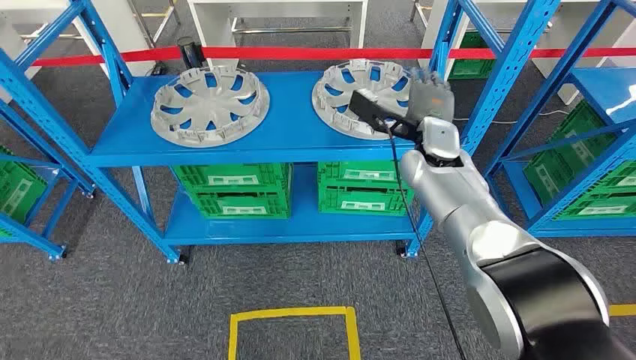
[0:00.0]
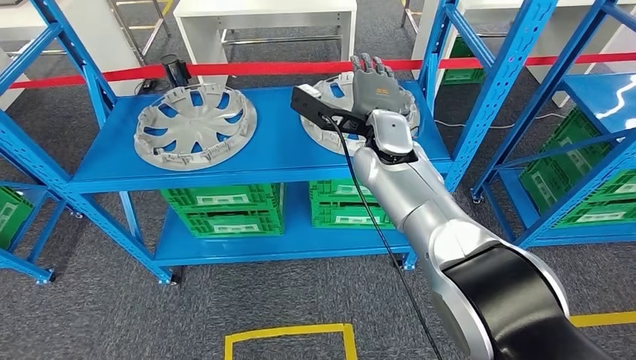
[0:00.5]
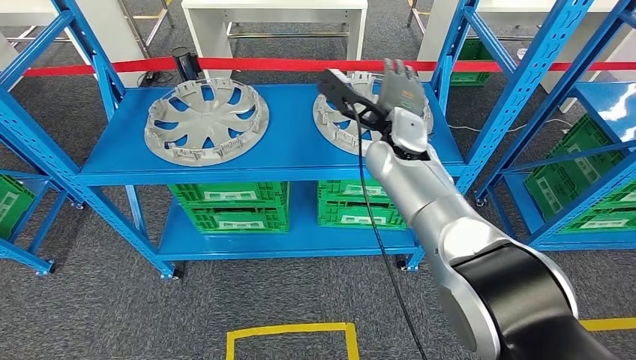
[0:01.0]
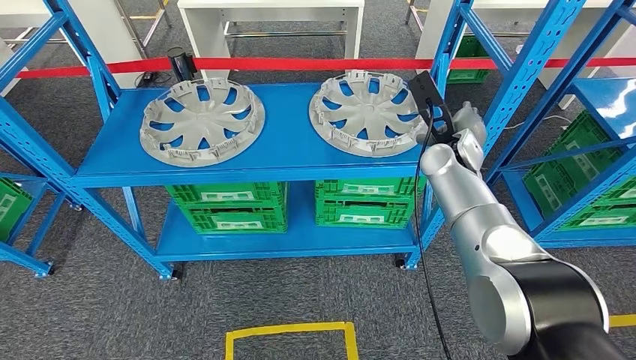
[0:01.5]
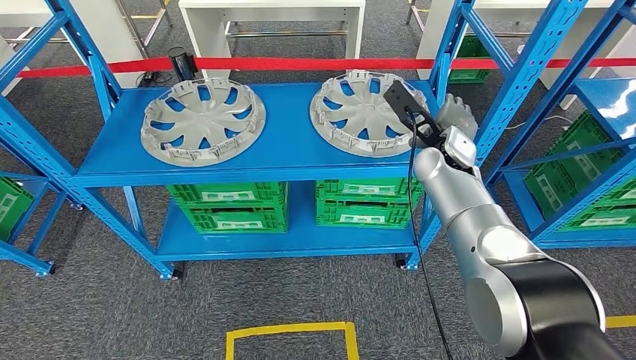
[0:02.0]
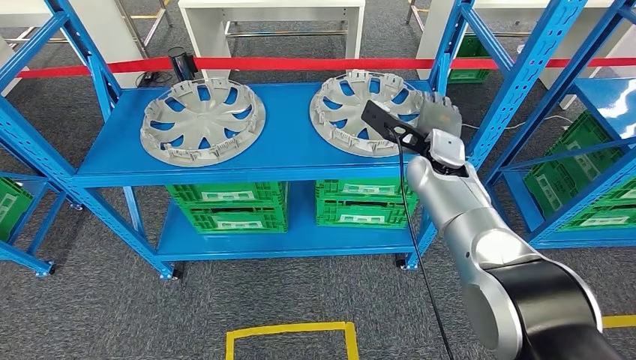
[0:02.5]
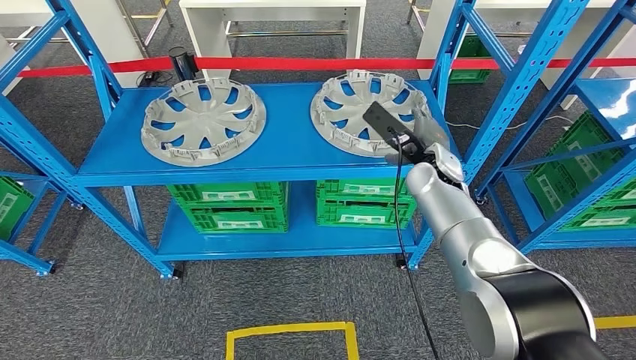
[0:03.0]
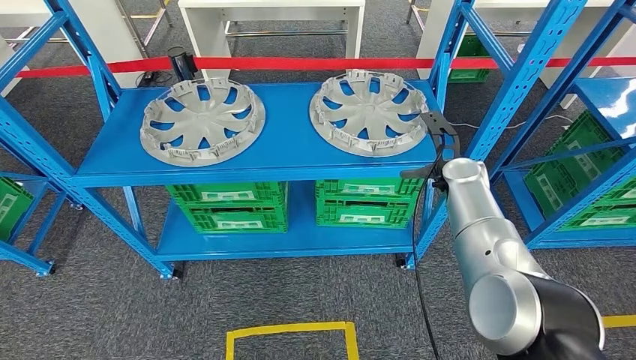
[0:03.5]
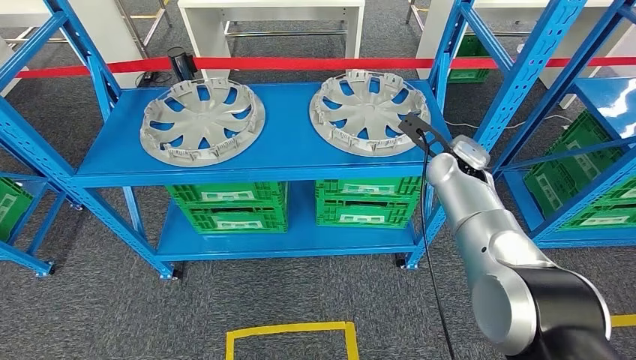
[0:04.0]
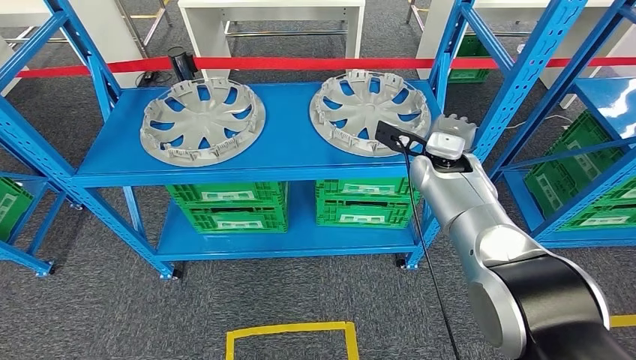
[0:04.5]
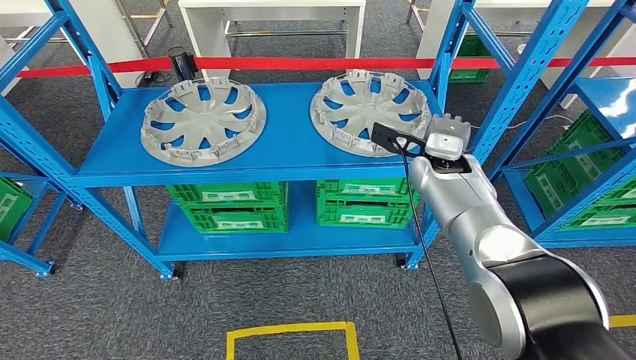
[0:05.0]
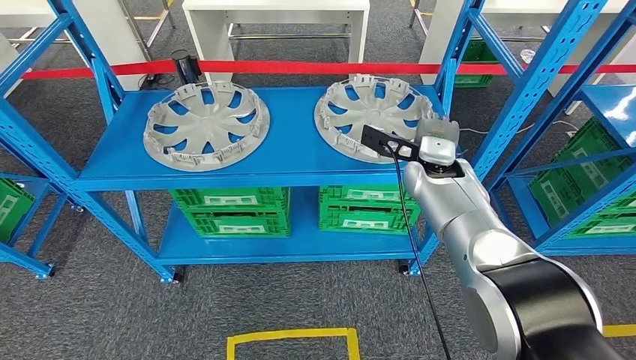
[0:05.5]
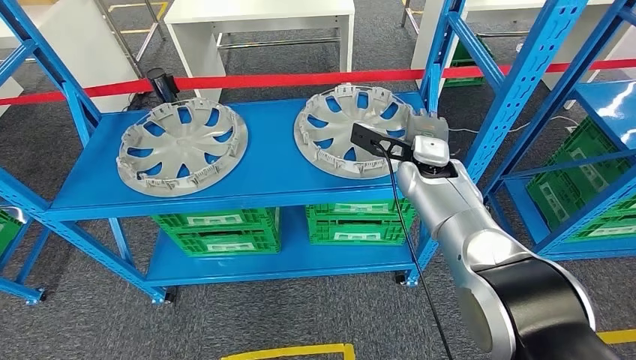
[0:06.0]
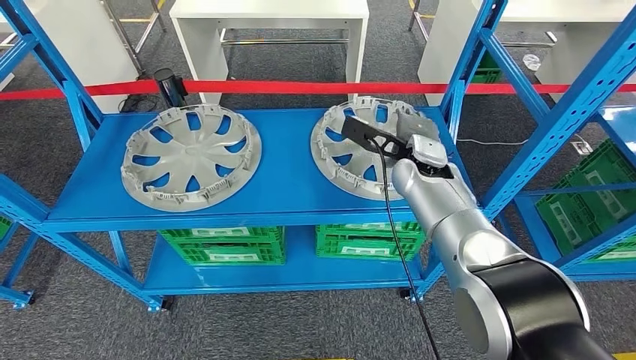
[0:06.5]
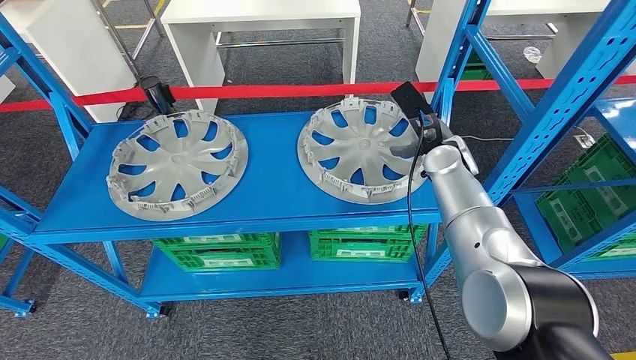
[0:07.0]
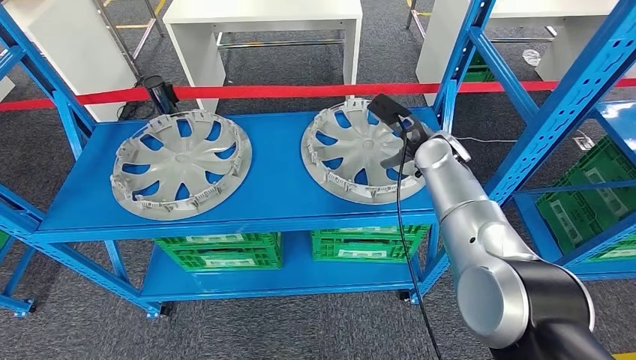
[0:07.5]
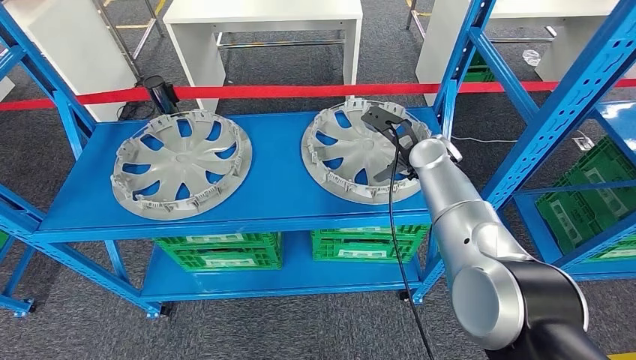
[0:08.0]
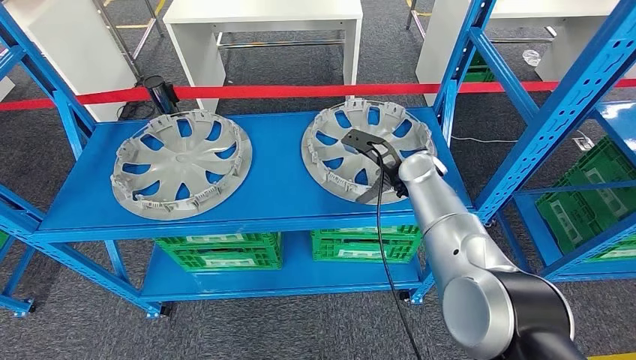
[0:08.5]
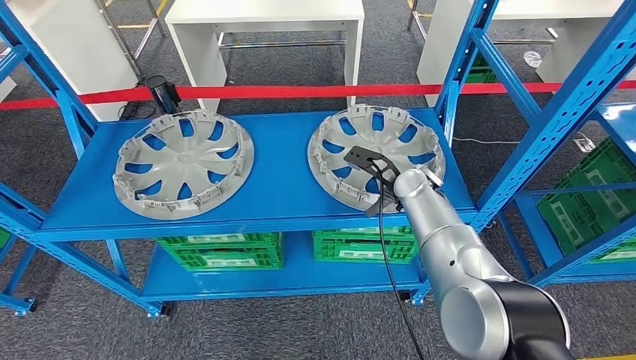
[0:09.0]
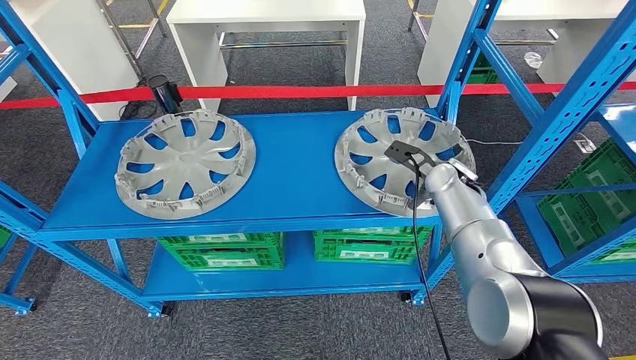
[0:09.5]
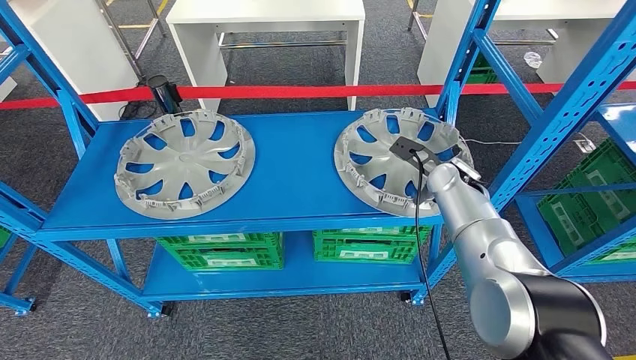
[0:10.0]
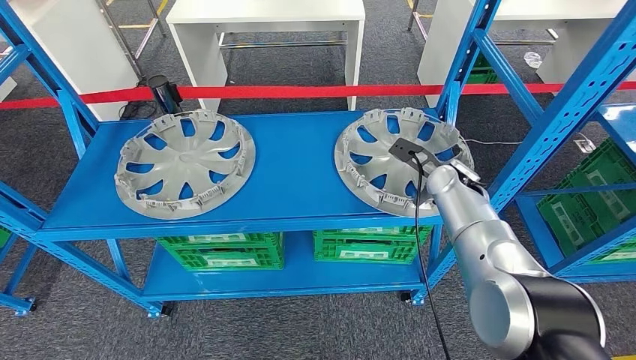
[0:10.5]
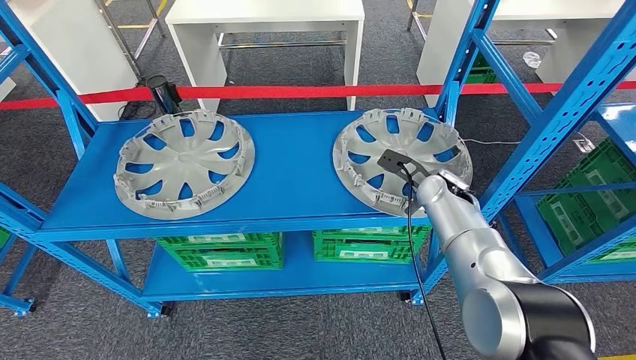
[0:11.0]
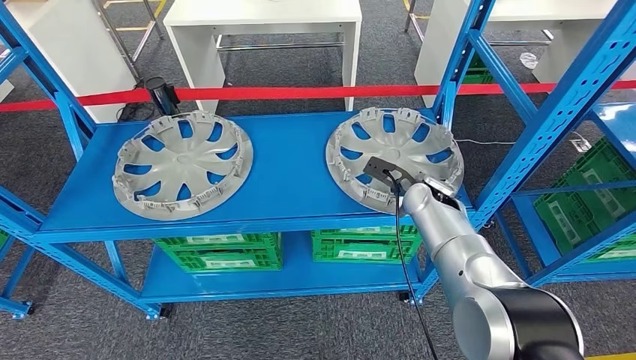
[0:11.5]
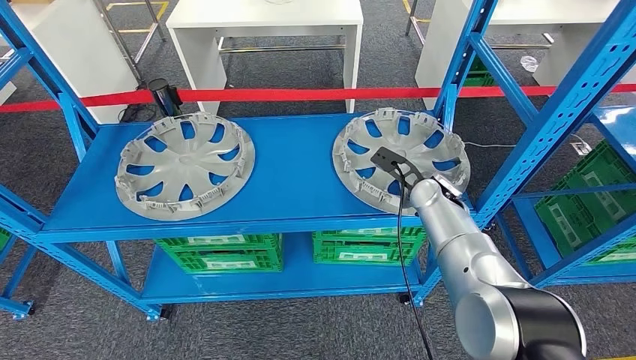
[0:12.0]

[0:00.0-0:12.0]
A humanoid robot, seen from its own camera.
0:08.0 to 0:10.0: The right hand travels to the right by roughly 5 cm.

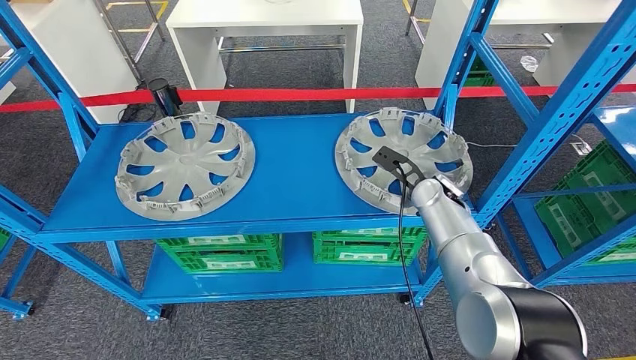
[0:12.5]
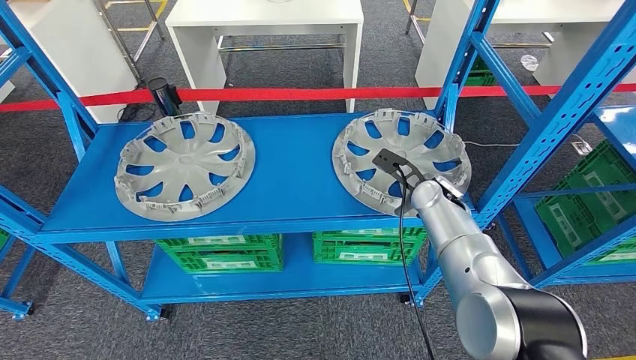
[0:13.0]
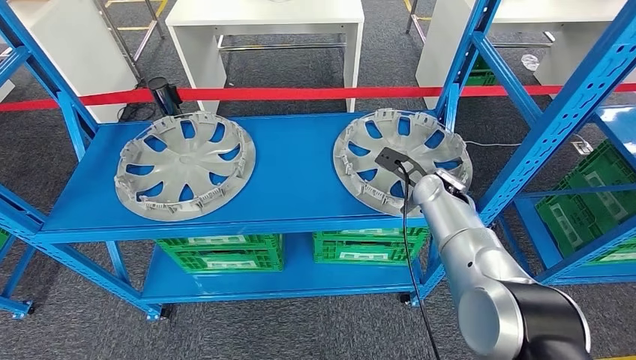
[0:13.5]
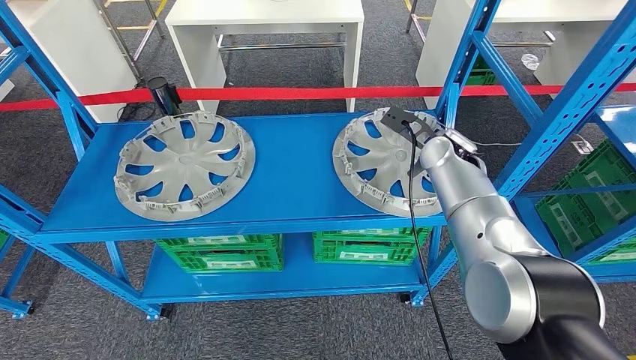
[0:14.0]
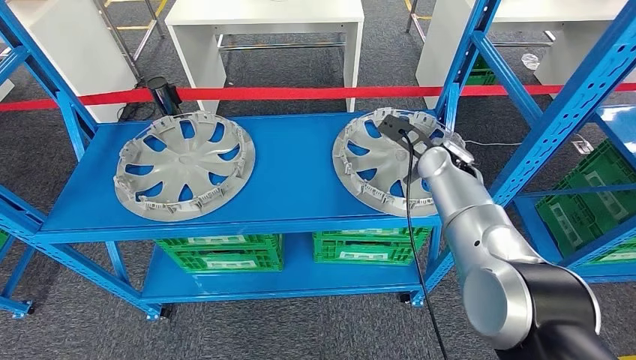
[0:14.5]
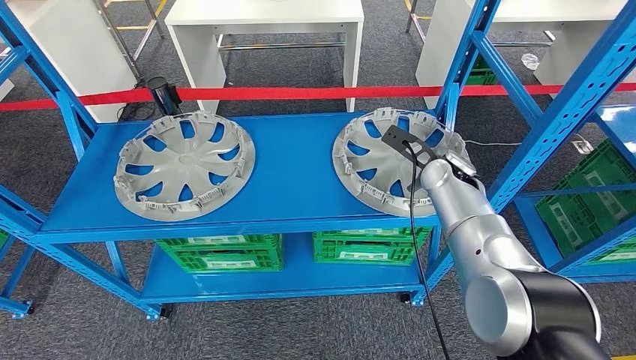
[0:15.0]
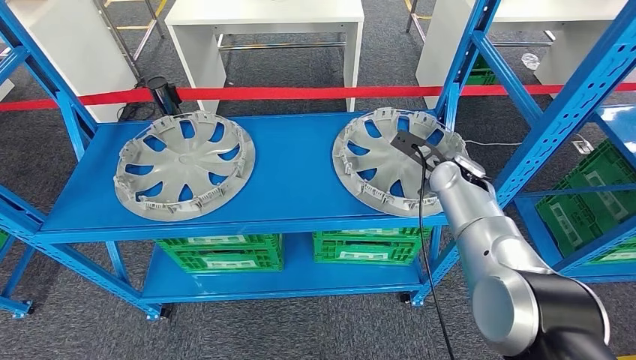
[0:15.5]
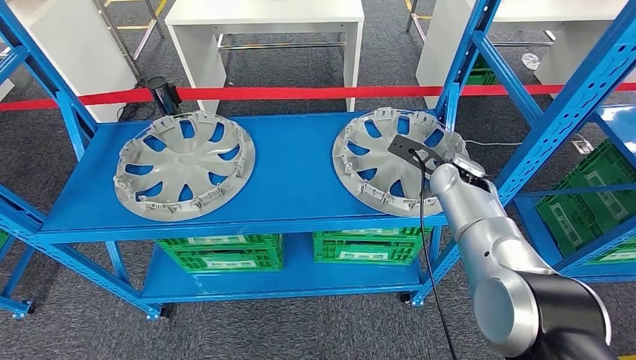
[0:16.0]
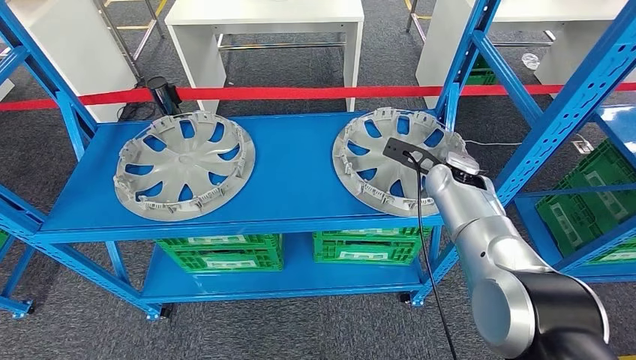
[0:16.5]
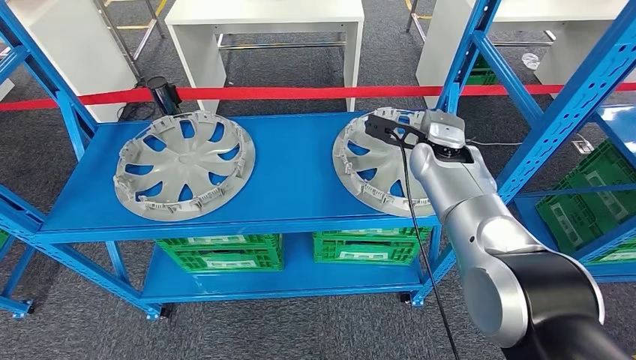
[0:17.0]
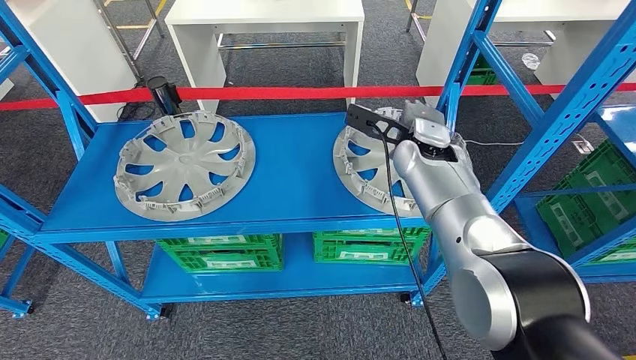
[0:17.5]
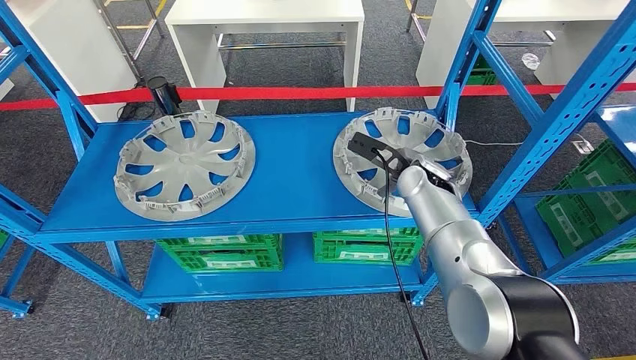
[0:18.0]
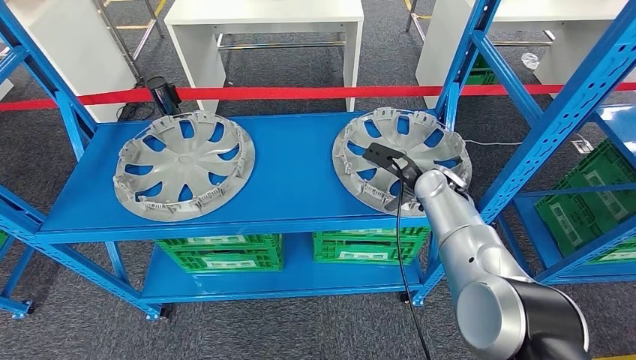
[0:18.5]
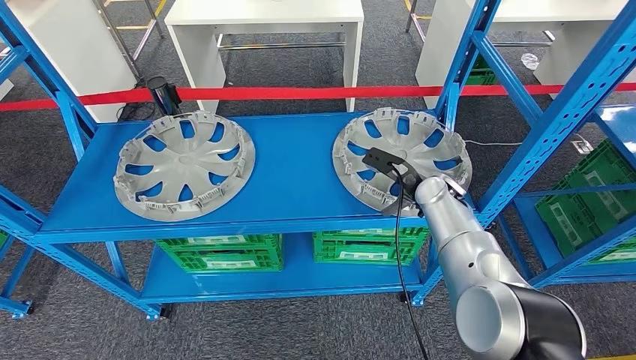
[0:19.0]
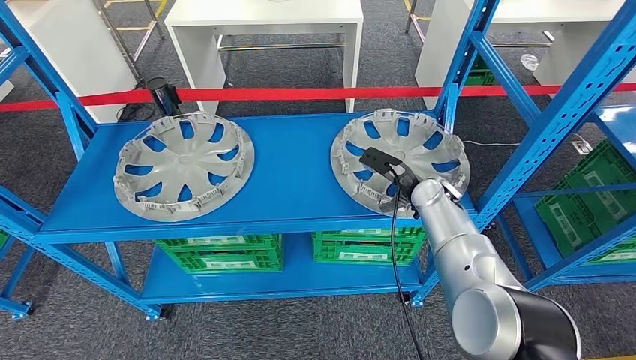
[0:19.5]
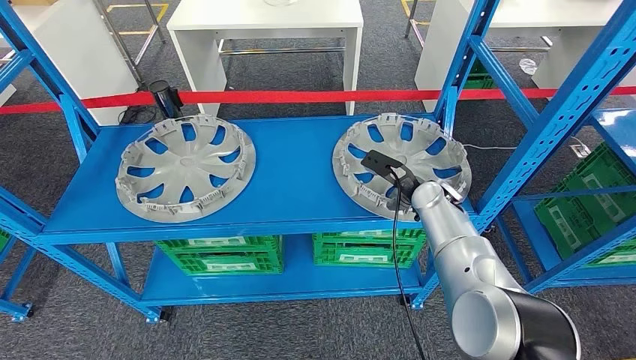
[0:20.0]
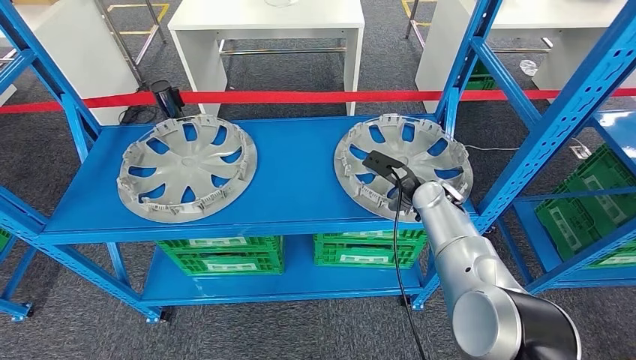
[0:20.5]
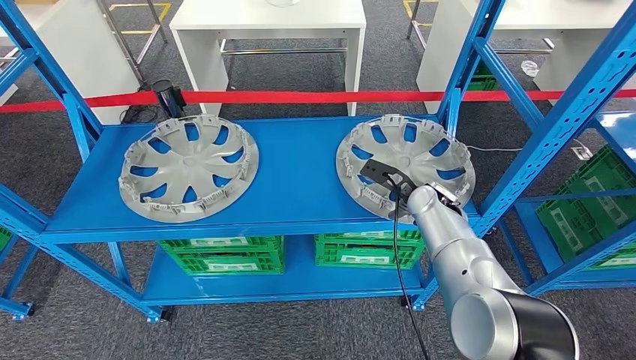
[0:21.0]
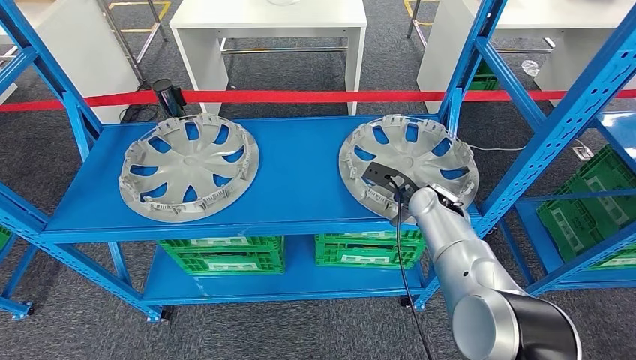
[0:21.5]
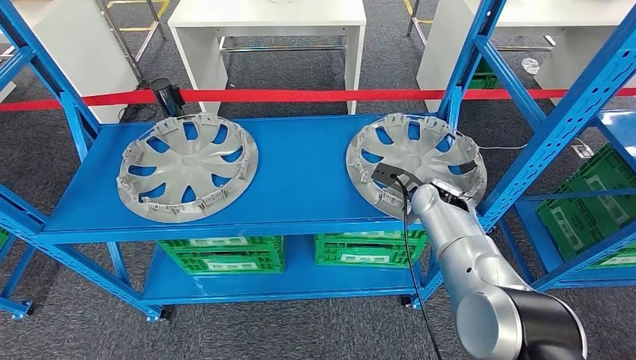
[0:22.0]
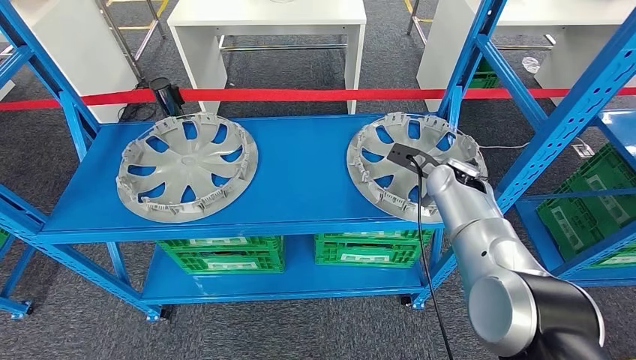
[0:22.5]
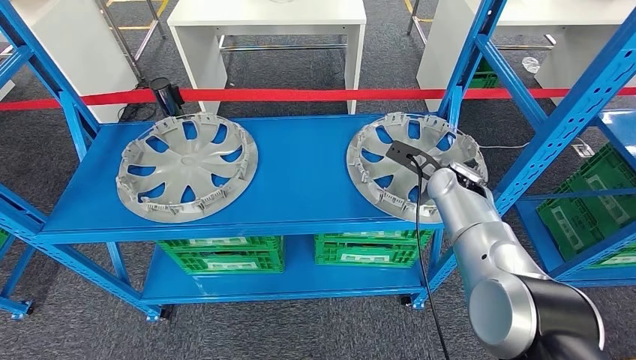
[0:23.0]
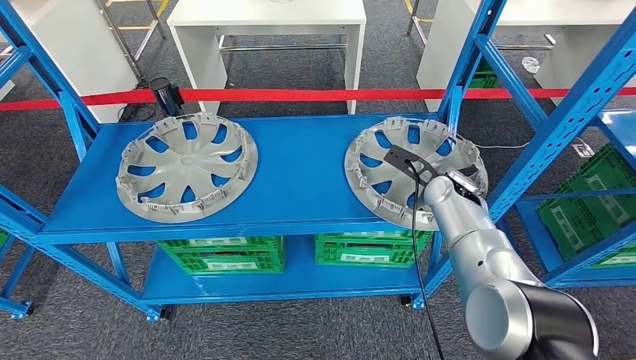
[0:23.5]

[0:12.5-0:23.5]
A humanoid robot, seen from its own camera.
0:12.5 to 0:14.5: The right hand shifts roughly 5 cm upward.
0:14.5 to 0:16.0: The hands stay close to where they were, moving slightly.
0:16.0 to 0:18.0: The right hand goes approximately 5 cm to the left.
0:18.0 to 0:20.0: The hands stay close to where they were, moving slightly.
0:20.0 to 0:21.5: The hands stay close to where they were, moving slightly.
0:21.5 to 0:23.5: The hands make only small movements.
